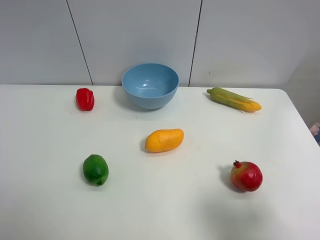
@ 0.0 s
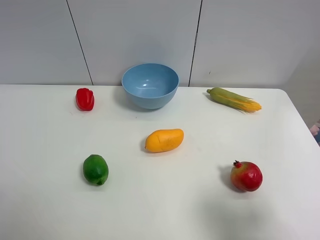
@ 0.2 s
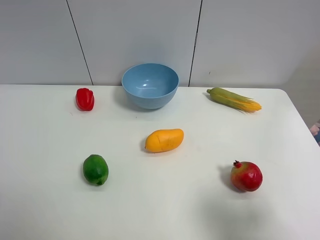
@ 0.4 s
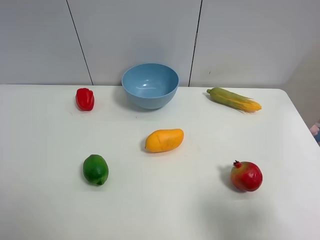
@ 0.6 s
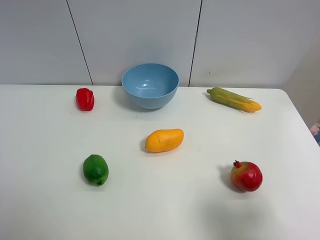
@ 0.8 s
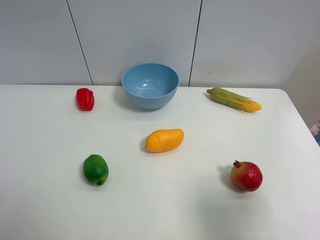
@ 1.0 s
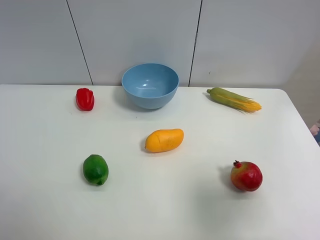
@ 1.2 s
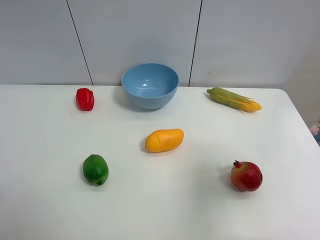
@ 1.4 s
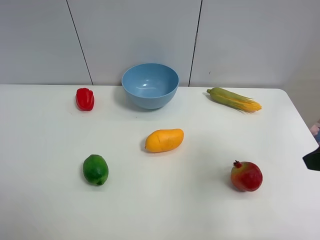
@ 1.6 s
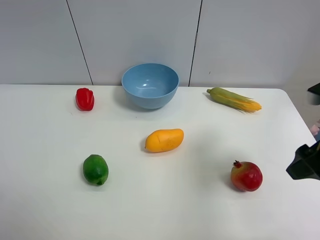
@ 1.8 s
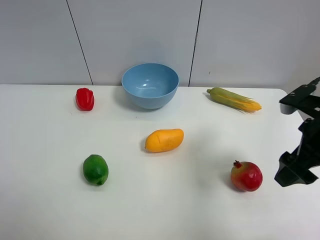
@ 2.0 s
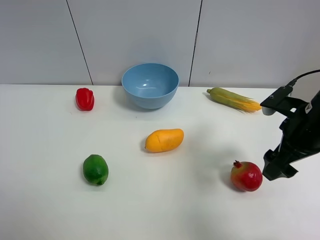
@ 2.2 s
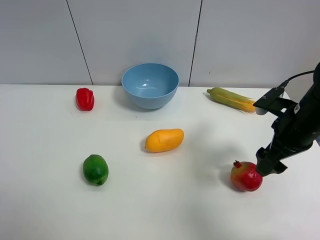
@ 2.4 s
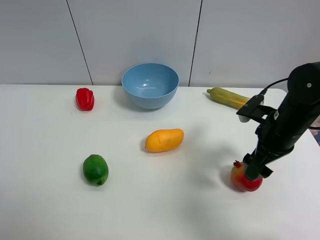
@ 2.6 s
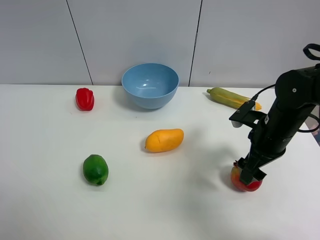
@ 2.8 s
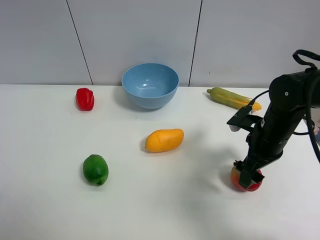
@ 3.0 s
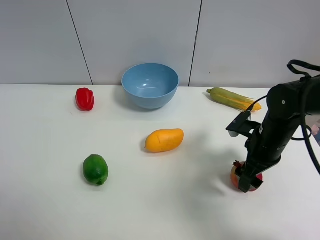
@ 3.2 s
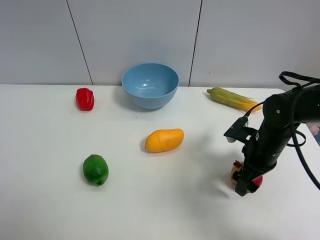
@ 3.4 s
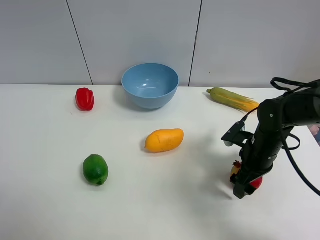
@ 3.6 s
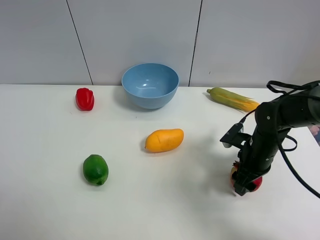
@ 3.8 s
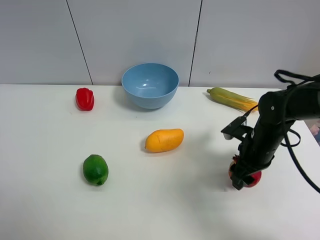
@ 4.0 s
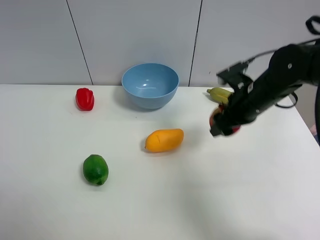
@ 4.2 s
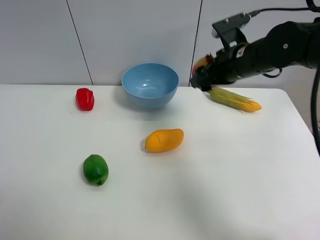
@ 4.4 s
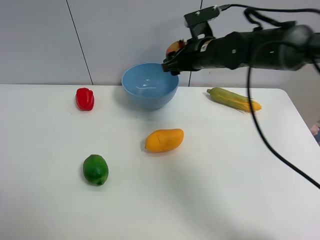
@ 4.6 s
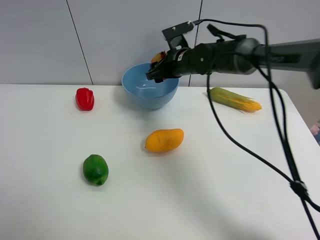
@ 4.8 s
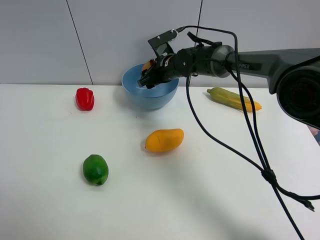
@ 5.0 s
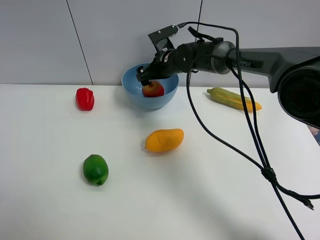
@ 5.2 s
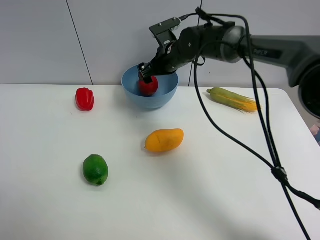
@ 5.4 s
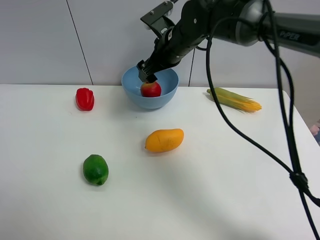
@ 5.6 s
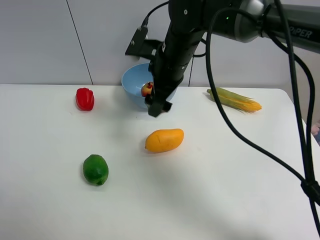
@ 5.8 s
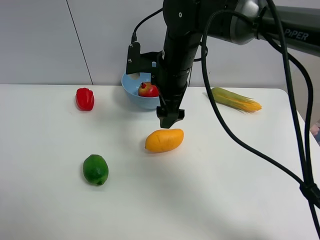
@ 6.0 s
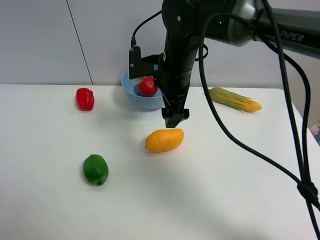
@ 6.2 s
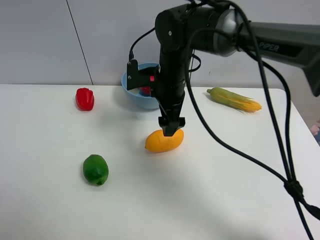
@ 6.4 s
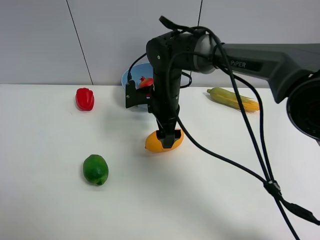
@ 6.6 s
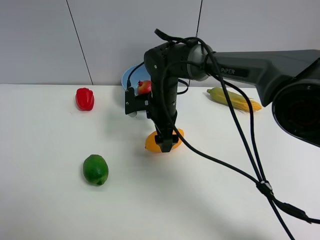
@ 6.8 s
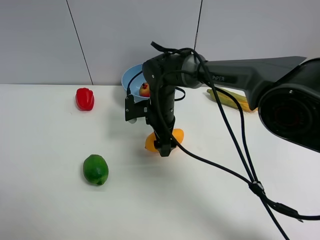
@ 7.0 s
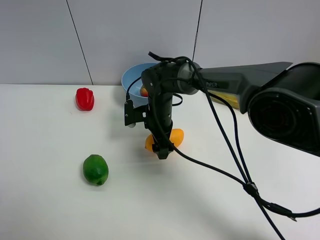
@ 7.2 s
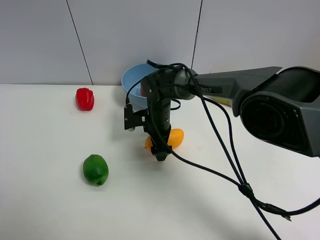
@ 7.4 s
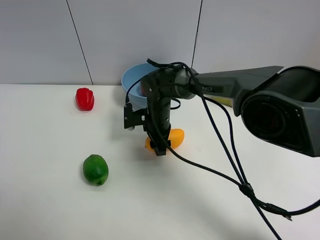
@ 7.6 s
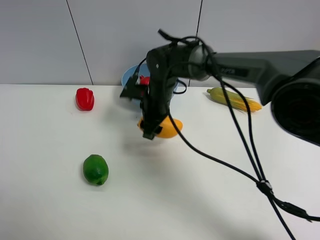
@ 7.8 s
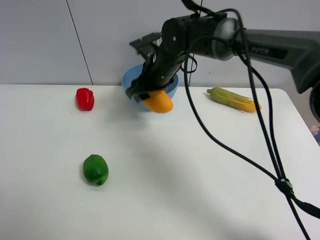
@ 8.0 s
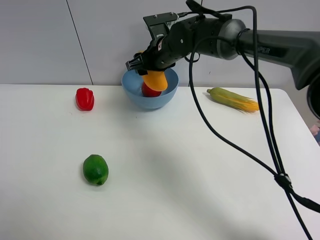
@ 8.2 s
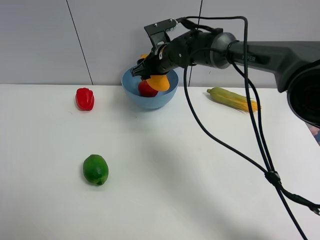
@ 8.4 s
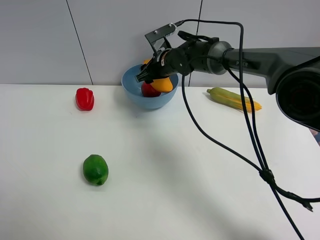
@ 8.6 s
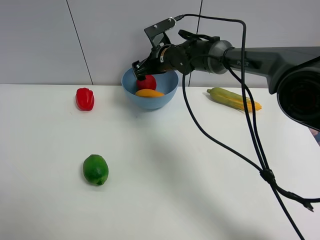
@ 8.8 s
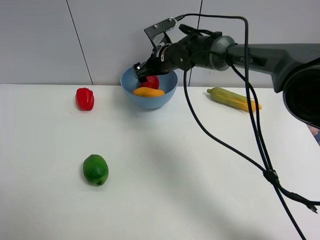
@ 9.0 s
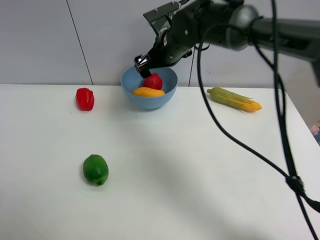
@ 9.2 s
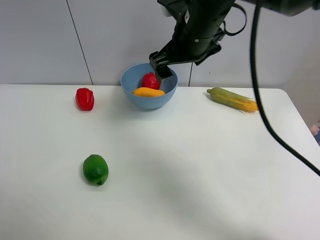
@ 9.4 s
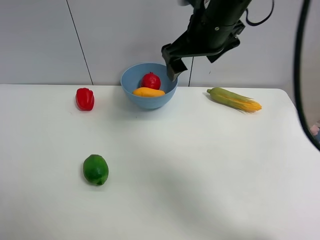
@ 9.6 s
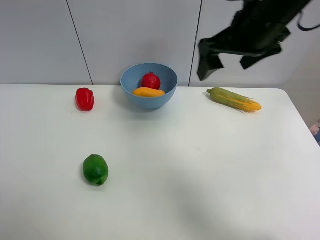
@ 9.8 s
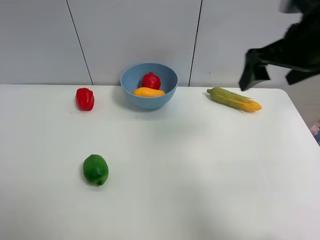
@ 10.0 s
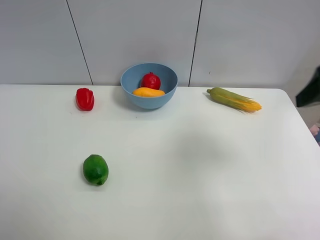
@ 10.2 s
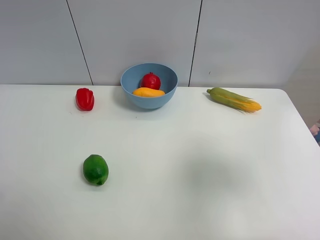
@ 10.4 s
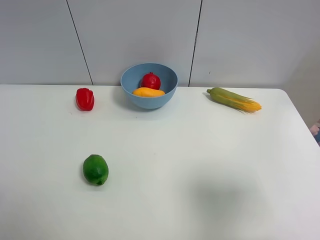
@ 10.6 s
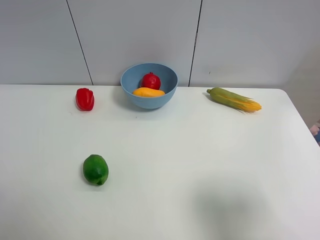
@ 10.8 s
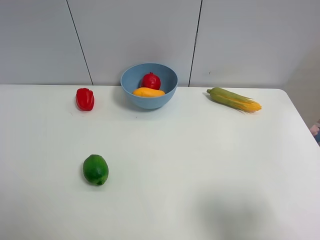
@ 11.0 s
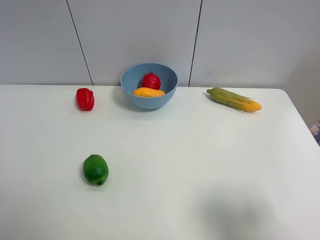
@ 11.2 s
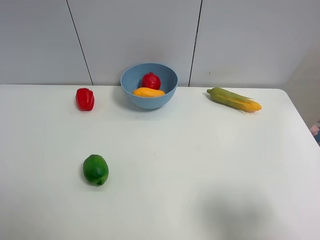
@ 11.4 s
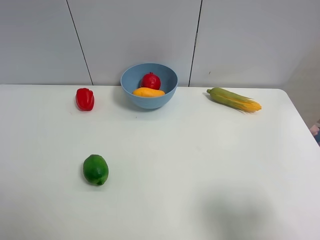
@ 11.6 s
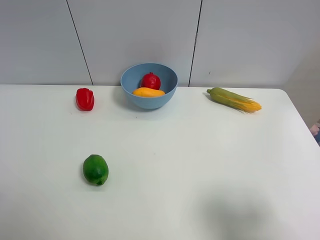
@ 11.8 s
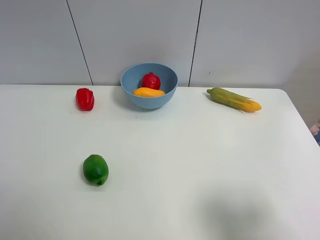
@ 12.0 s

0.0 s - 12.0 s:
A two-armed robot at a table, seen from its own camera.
Task of the whole recording: Put the three fruits on the table into a bowl.
Step, 0.0 s - 3.8 s: Grasp the pomegranate with right gripper.
Step, 4.0 s - 5.4 s: Place the pomegranate in the blue bowl with right gripper.
Step, 5.6 s - 7.6 s: Grasp the mango with right gripper.
Step, 7.8 s - 8.8 s: Place the mango in the blue bowl with right gripper.
0.0 s - 1.6 s: The right gripper is displaced forward by roughly 15 cm.
1.6 s - 3.0 s: The right gripper shifts approximately 20 cm downward, forward and to the left.
3.0 s - 4.4 s: The right gripper is displaced upward, forward and to the left by some 15 cm, and closes its fingers.
4.4 s - 6.0 s: The right gripper is displaced to the left by some 10 cm, travels forward and back again, some 10 cm each way, and opens up.
6.0 s - 7.6 s: The right gripper goes some 15 cm downward, and closes its fingers.
7.6 s - 9.0 s: The right gripper is displaced upward and forward by some 15 cm, and opens up.
9.0 s - 10.4 s: The right gripper shifts approximately 40 cm backward and to the right.
10.4 s - 12.0 s: The right gripper shifts about 10 cm backward and downward.

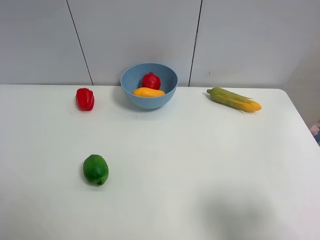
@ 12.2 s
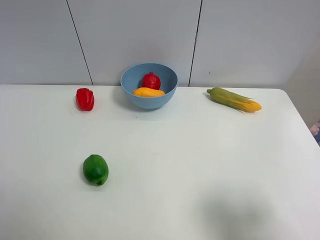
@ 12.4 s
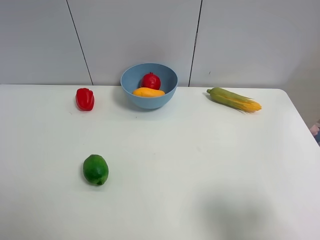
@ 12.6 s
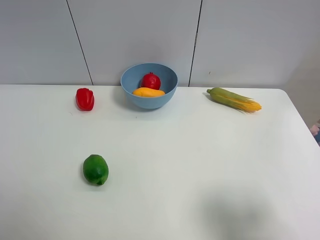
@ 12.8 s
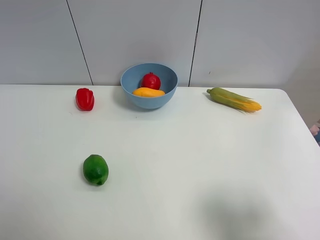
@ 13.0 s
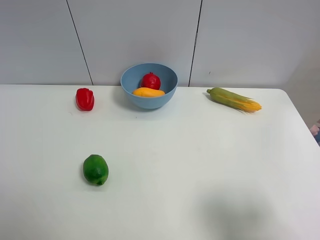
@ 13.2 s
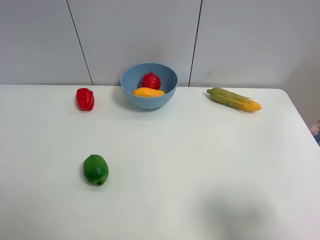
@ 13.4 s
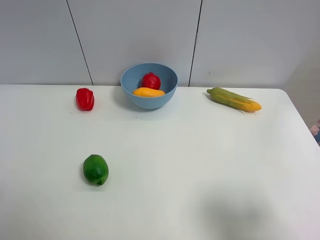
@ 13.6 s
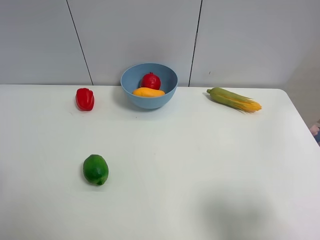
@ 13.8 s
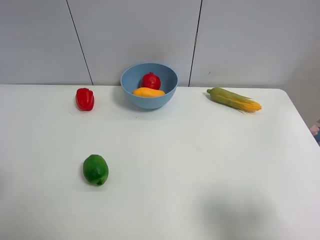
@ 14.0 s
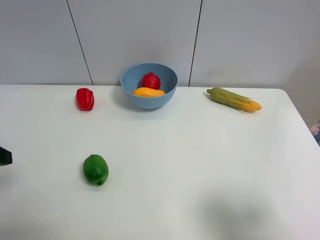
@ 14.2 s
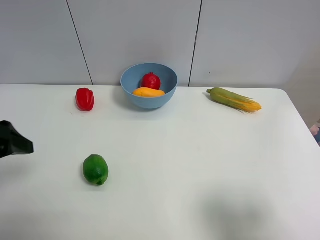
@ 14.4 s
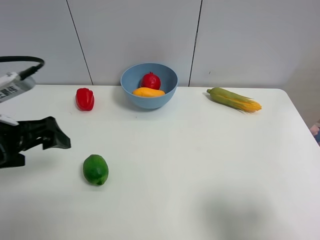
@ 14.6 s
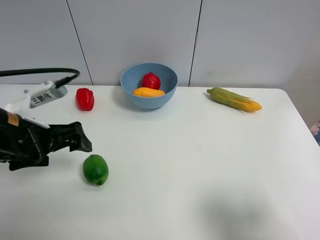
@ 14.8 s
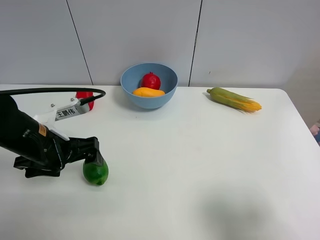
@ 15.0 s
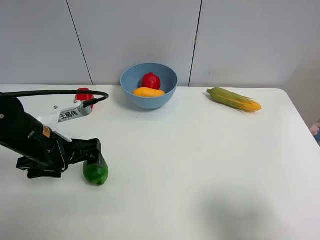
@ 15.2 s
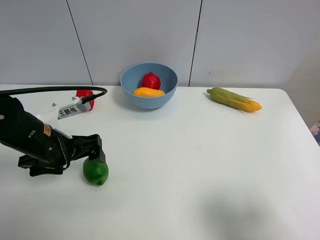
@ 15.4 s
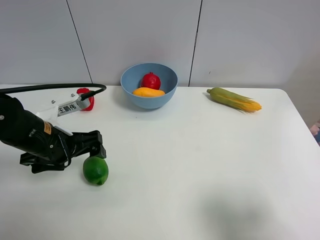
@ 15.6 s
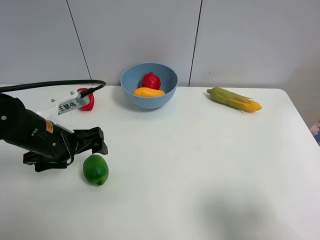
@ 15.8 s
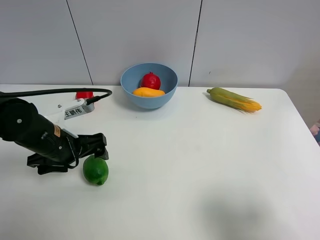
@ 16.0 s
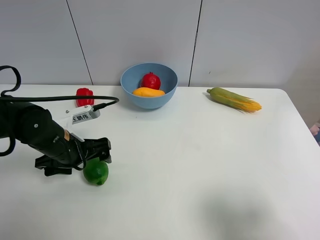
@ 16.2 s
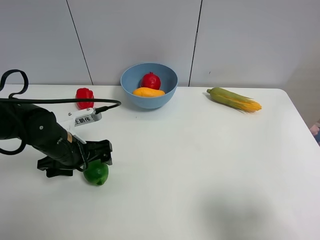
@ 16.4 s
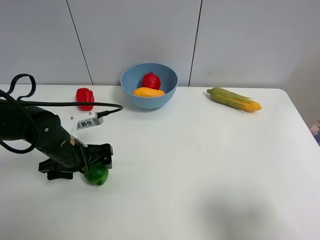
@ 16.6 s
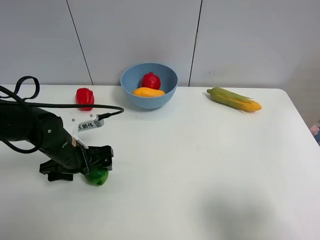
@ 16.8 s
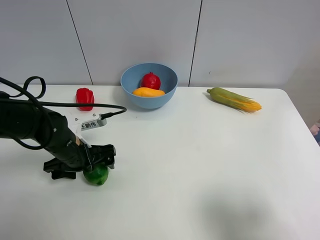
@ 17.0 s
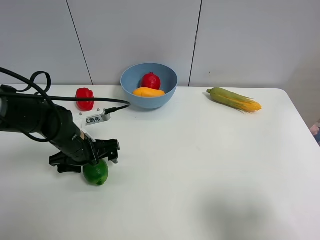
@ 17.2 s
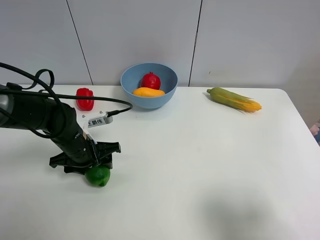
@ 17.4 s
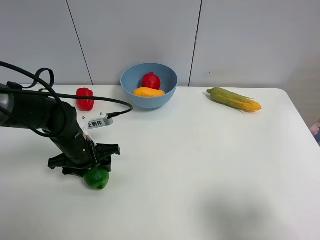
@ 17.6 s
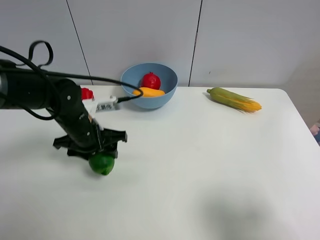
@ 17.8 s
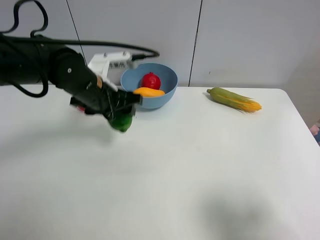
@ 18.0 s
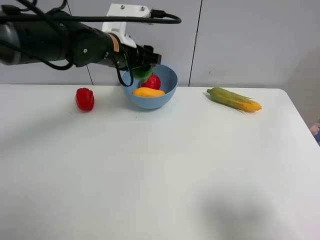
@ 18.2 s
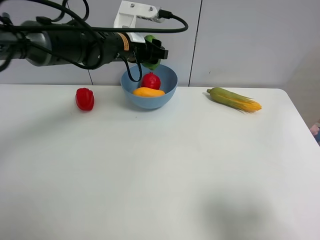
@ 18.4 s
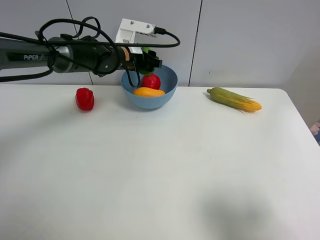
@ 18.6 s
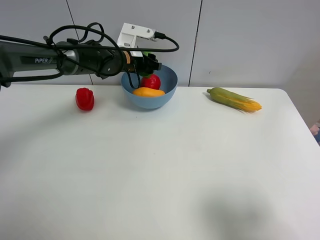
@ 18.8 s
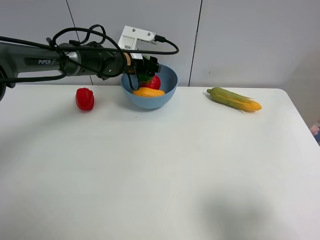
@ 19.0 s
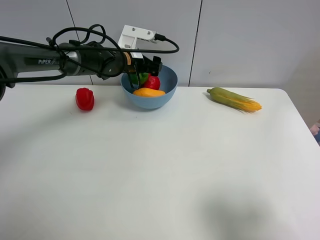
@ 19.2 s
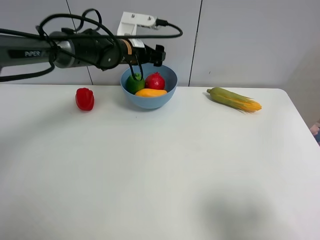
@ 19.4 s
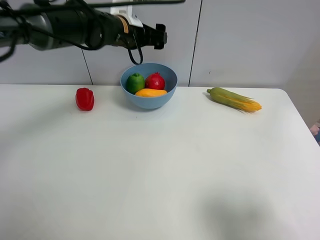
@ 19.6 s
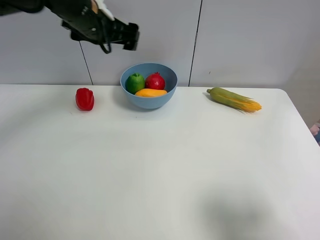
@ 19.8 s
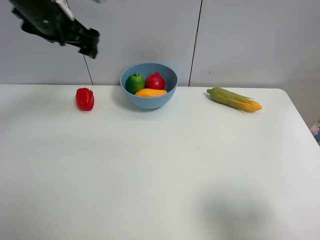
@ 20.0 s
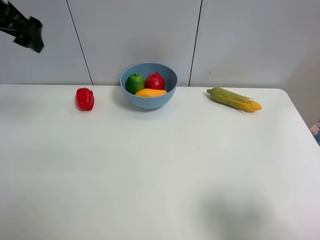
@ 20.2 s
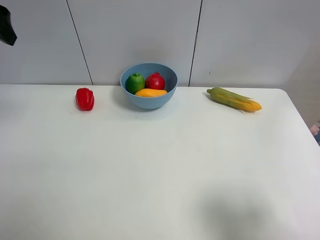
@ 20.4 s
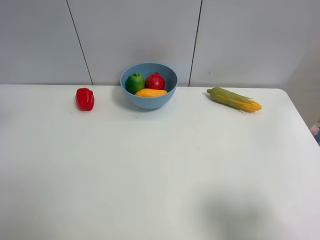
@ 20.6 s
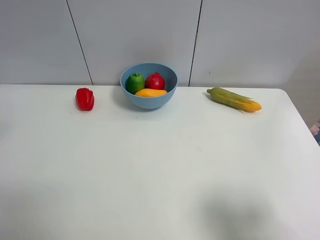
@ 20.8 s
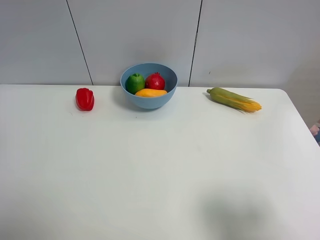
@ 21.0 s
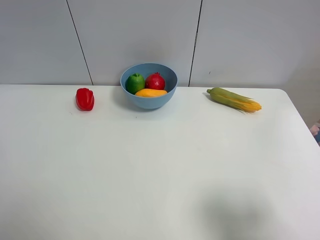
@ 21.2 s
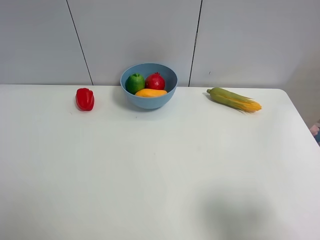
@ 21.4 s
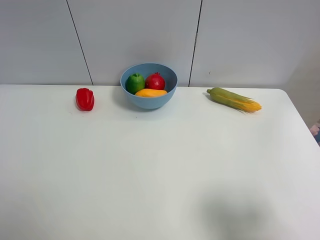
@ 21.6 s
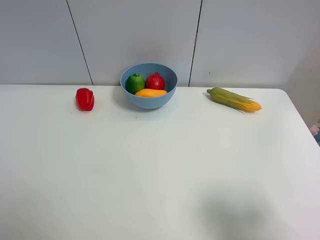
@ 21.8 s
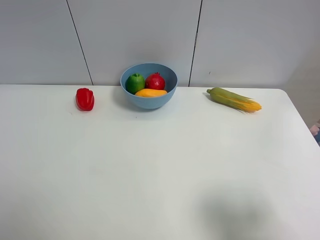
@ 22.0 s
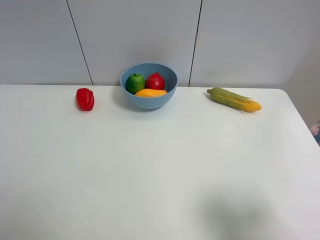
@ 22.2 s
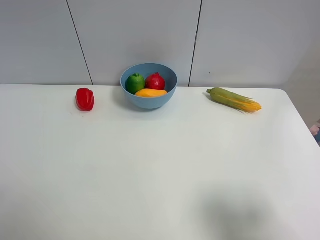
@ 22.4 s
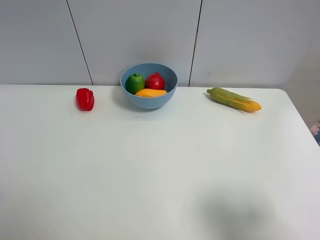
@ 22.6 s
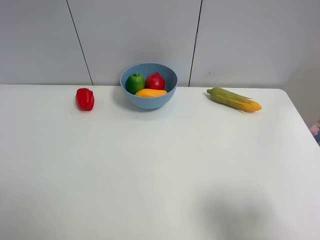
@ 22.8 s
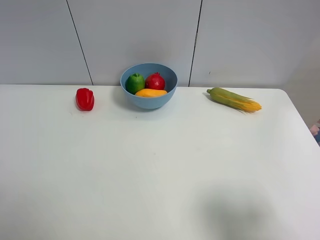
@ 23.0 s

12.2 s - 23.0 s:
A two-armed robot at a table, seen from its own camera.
Task of the whole recording: Put the three fruits on the table into a bowl.
Step, 12.2 s - 17.4 s: Grasp the green lemon with left gripper.
Step, 17.6 s - 19.2 s: Place the green lemon in the blue bowl with left gripper.
13.8 s - 15.2 s: The left gripper heads forward, to the right and downward, covering roughly 20 cm.
15.2 s - 16.8 s: The left gripper goes some 5 cm downward.
16.8 s - 18.4 s: The left gripper is displaced forward, upward and to the right by approximately 25 cm, and closes up.
18.4 s - 20.0 s: The left gripper shifts roughly 15 cm to the left, upward and backward, and opens its fingers.
20.0 s - 21.4 s: The left gripper is displaced backward by approximately 30 cm.
